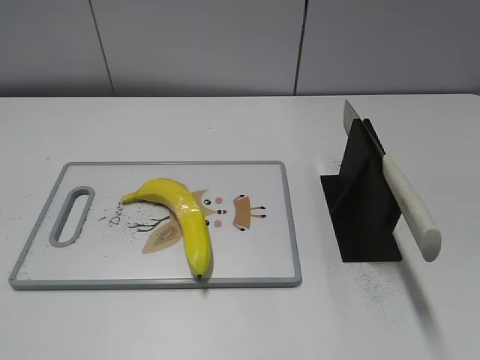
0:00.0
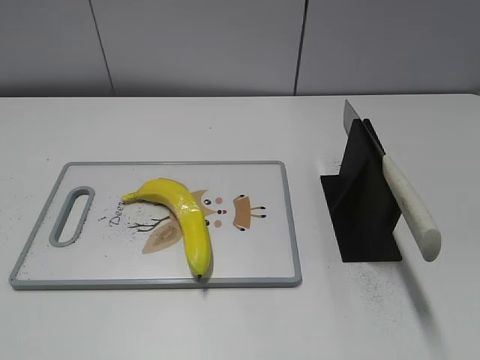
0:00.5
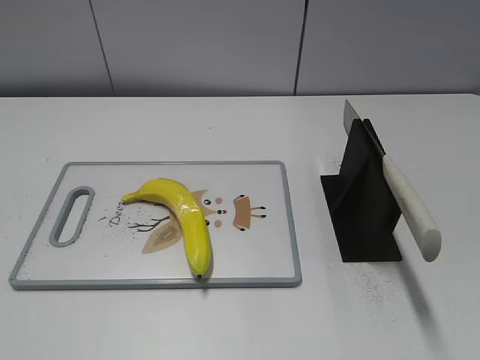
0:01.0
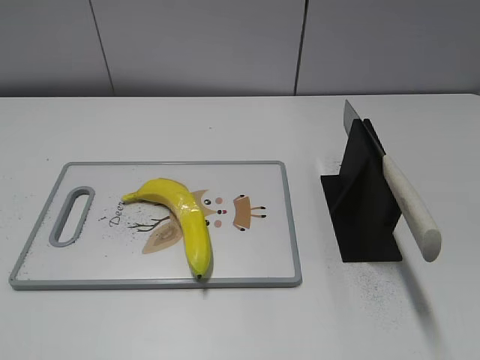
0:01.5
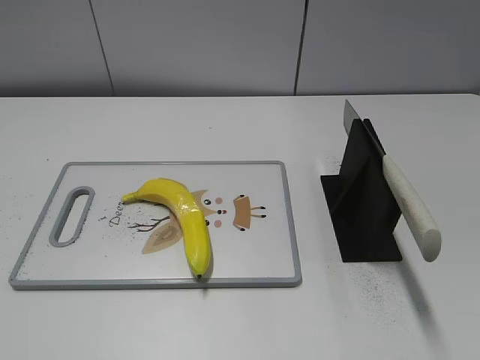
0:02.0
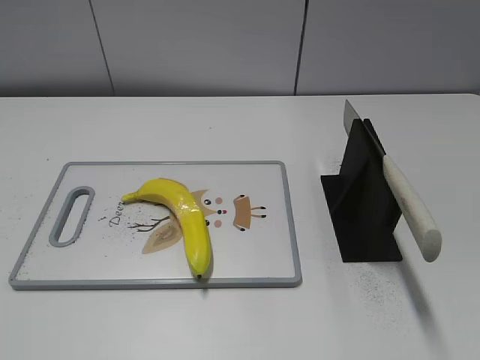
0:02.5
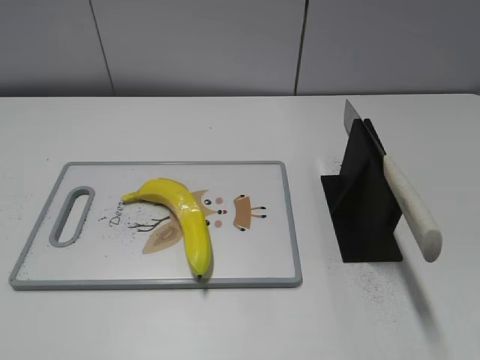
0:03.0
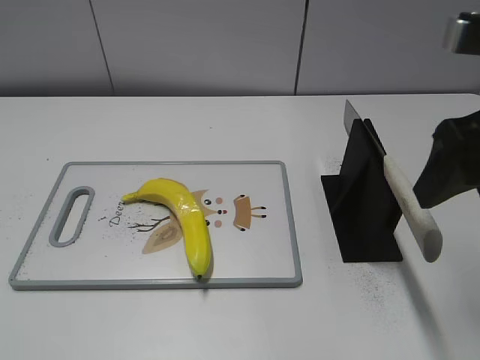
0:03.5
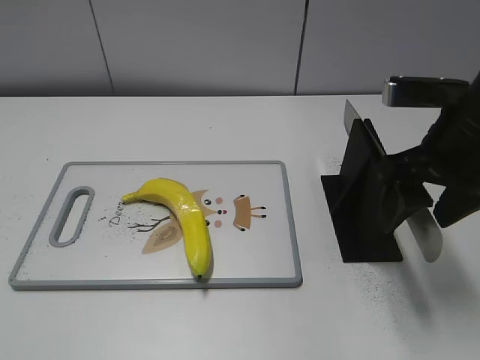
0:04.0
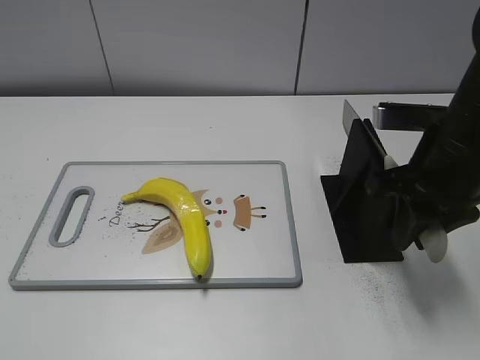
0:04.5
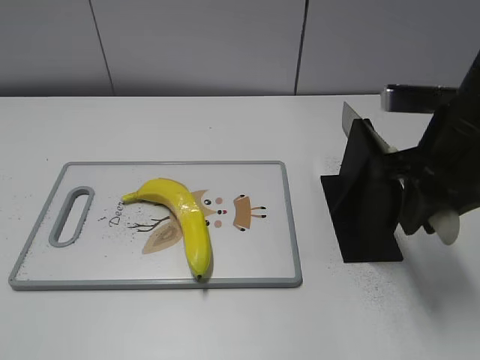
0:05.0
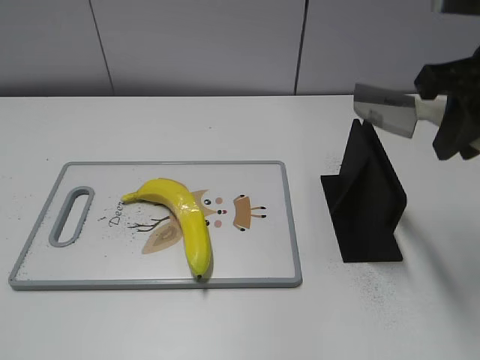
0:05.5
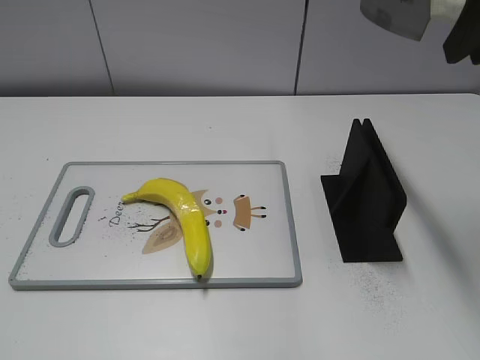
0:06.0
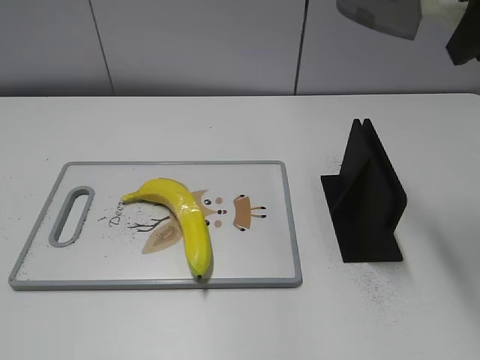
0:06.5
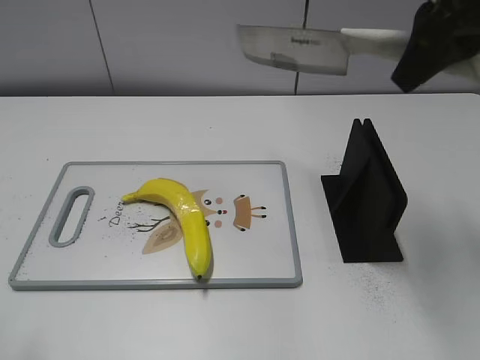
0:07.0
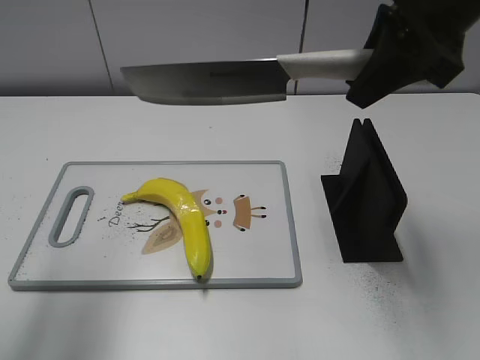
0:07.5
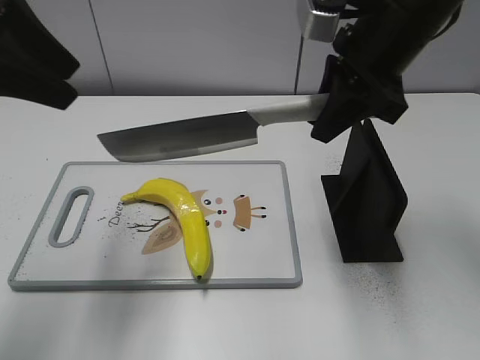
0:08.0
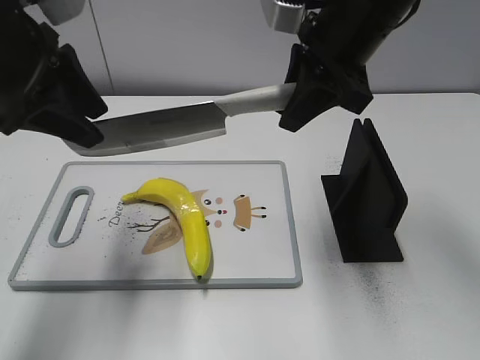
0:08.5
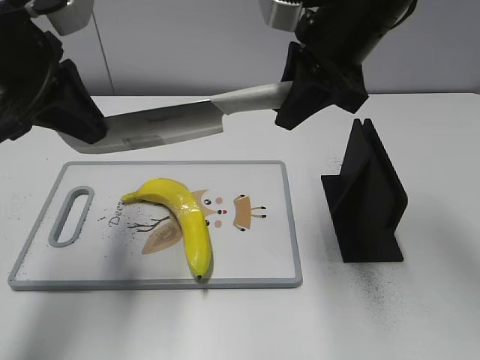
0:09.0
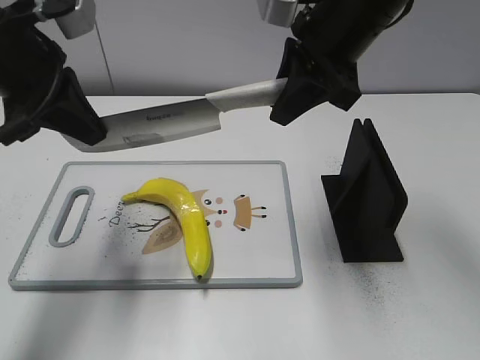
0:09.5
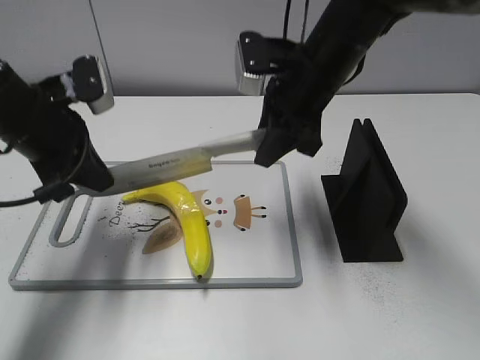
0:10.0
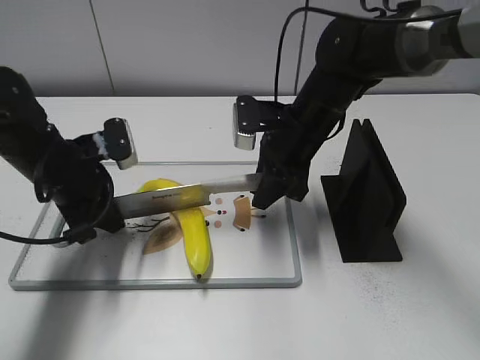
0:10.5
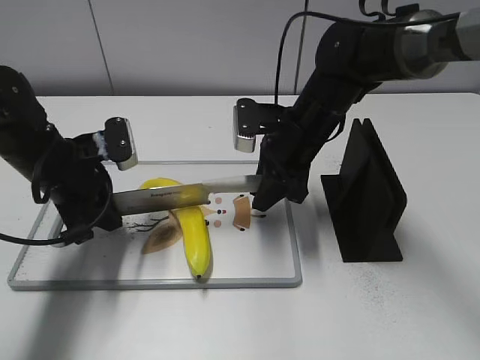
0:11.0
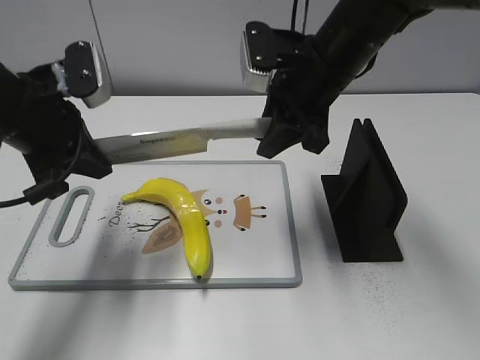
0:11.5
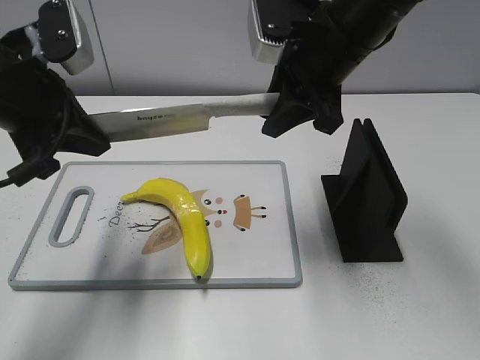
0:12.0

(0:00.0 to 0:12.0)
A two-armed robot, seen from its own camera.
Task of the whole recording: cut plastic banana.
Step, 0:00.0 - 0:05.5: Grab the knife handle with your right hand.
Step, 0:06.0 - 0:11.0: Lift the knife with your right hand.
0:02.0 - 0:04.0: The right gripper heads forward, covering approximately 25 cm.
0:04.0 - 0:06.0: The right gripper heads upward, covering roughly 15 cm, and closes its fingers.
0:06.0 - 0:08.0: The left gripper is displaced forward by some 30 cm; the right gripper travels downward, forward and to the left by approximately 15 cm.
0:08.0 - 0:10.0: The right gripper moves downward, some 10 cm; the left gripper moves downward, approximately 15 cm, and closes its fingers.
0:10.0 - 0:12.0: The grippers both shift upward by roughly 5 cm.

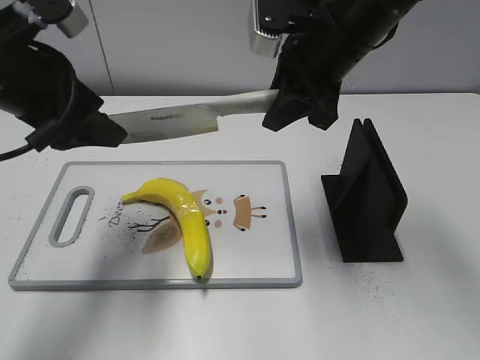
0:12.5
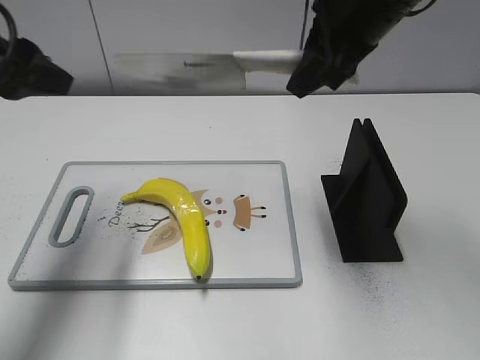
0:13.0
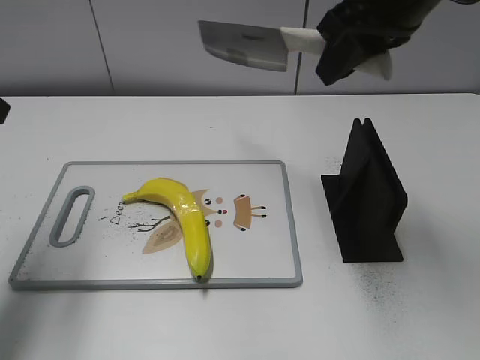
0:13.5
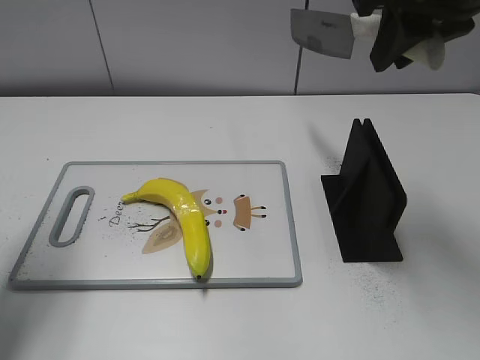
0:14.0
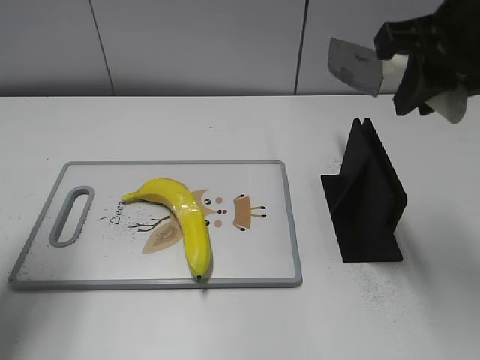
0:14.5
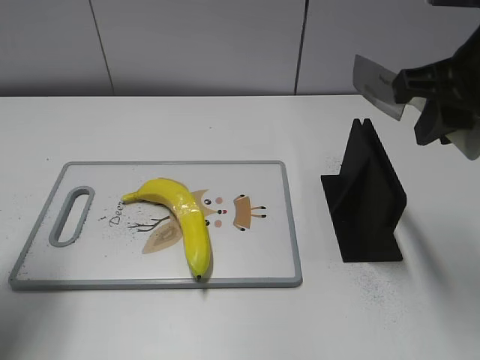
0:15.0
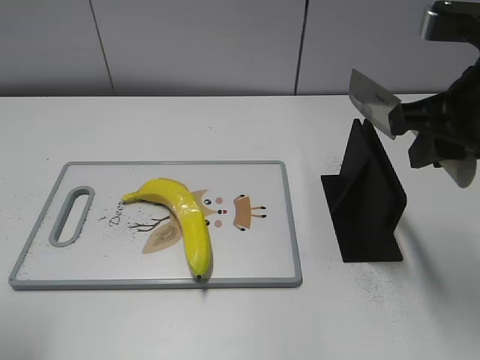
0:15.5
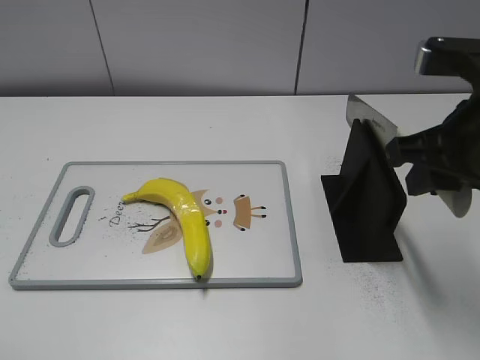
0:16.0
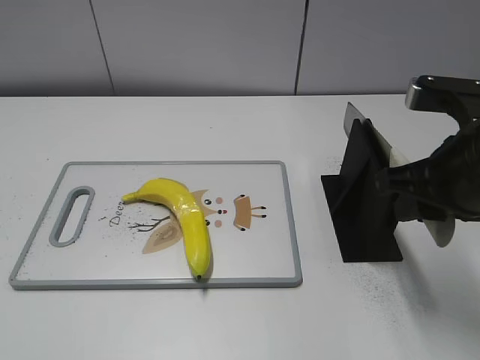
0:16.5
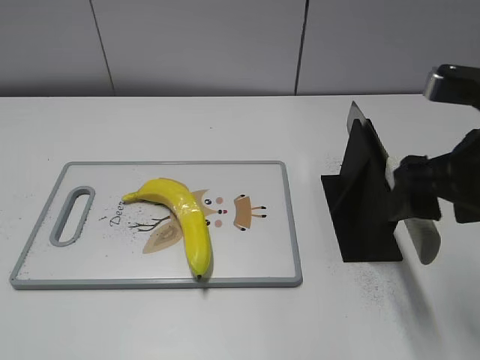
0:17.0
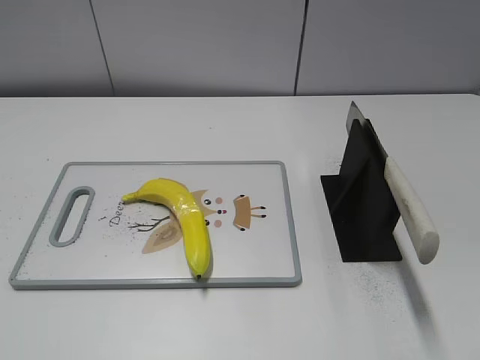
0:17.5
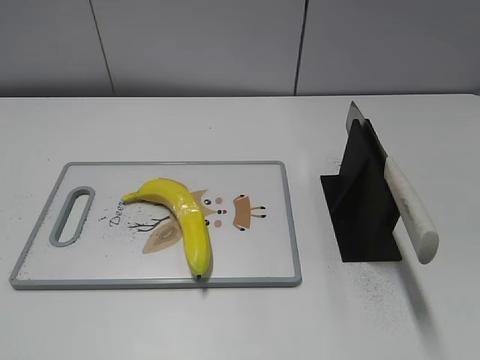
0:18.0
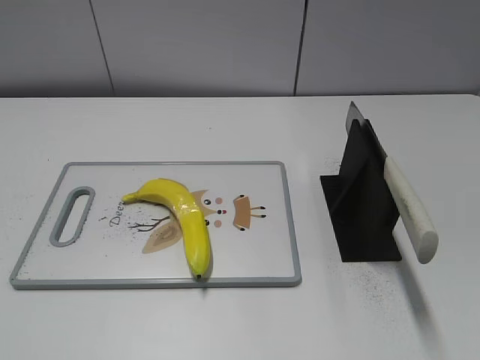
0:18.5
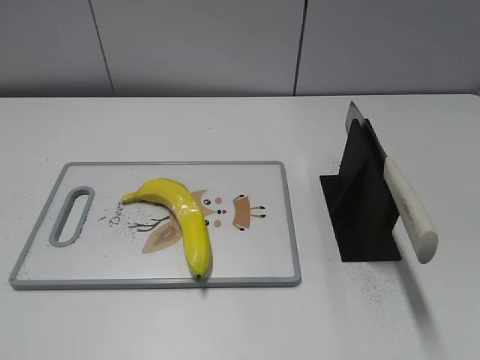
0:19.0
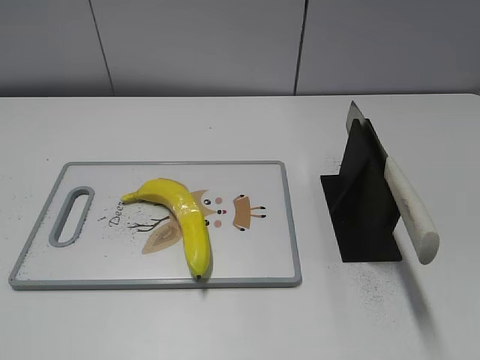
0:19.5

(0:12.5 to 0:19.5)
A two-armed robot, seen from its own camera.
Task of the whole recording: cut plastic banana.
Step, 0:13.5 - 0:14.5: Lift the knife with your right hand.
Step, 0:15.0 - 0:19.5: Place the knife on the storage rack with your right hand.
0:12.5 - 0:14.5: The right gripper heads backward, to the right and upward, covering roughly 15 cm, while the left gripper heads to the left, covering approximately 10 cm.
0:14.5 - 0:16.0: The right gripper is displaced downward by approximately 10 cm, while the left gripper travels backward by some 20 cm.
0:16.0 - 0:17.5: The right gripper shifts about 15 cm backward, and opens.
